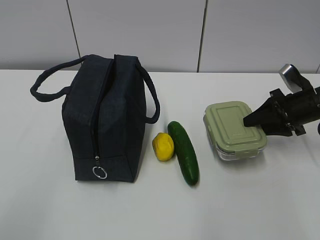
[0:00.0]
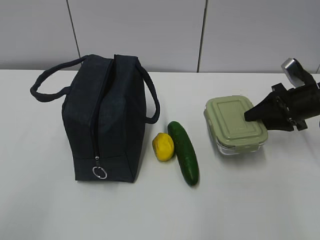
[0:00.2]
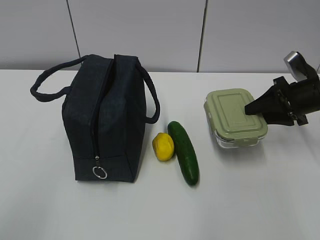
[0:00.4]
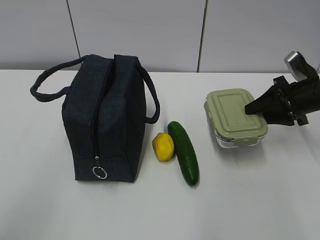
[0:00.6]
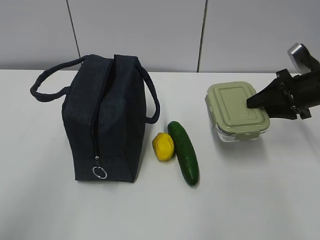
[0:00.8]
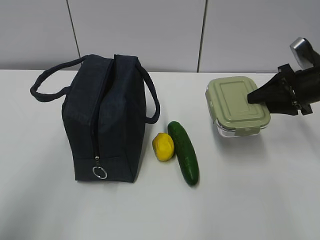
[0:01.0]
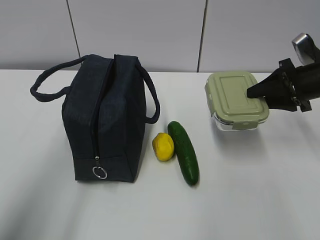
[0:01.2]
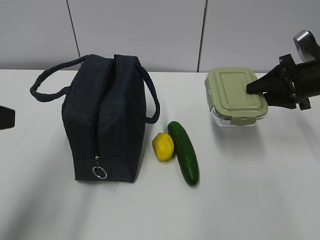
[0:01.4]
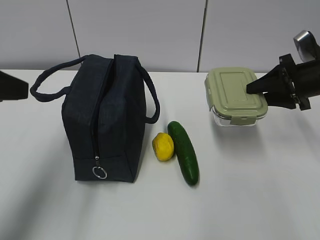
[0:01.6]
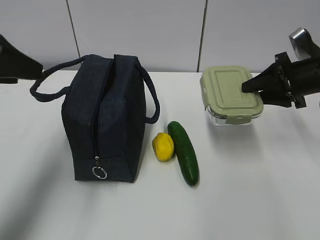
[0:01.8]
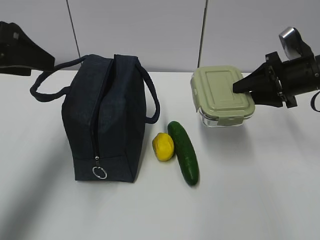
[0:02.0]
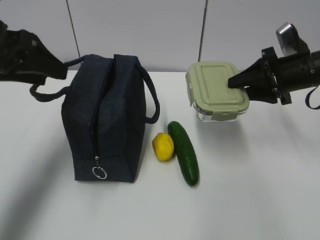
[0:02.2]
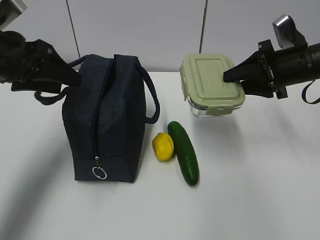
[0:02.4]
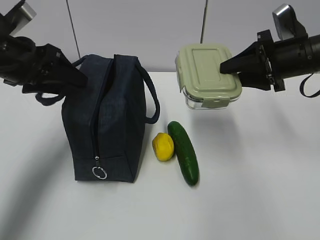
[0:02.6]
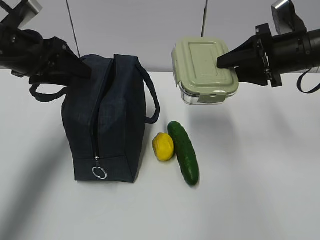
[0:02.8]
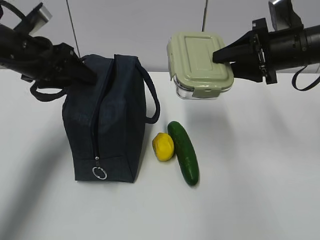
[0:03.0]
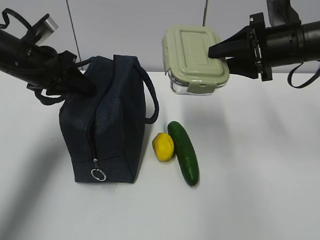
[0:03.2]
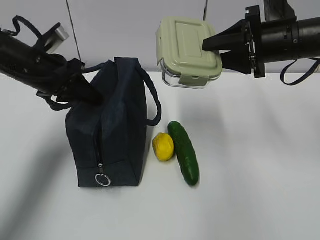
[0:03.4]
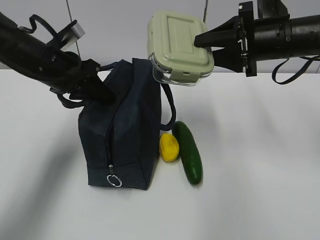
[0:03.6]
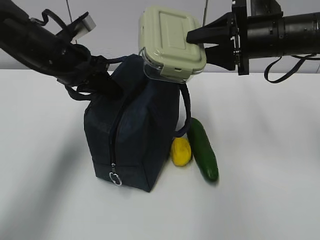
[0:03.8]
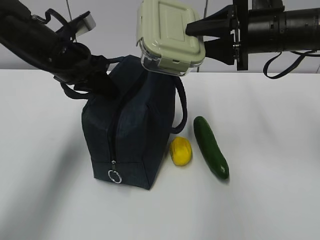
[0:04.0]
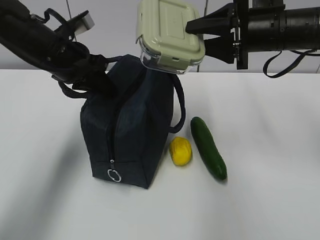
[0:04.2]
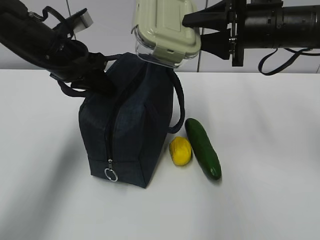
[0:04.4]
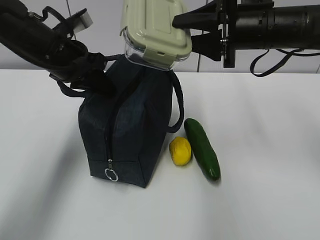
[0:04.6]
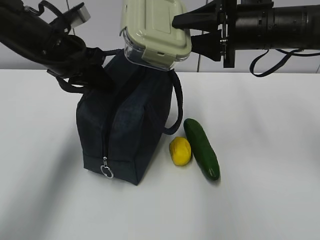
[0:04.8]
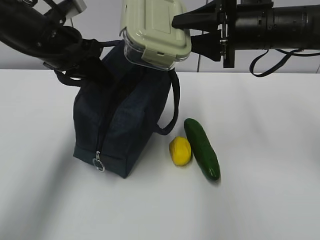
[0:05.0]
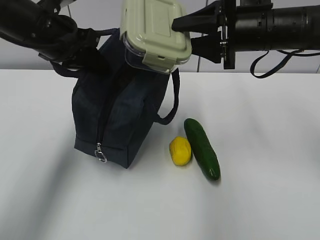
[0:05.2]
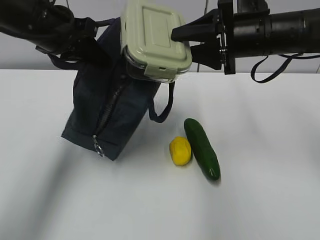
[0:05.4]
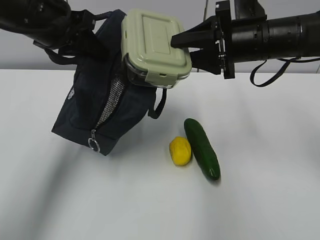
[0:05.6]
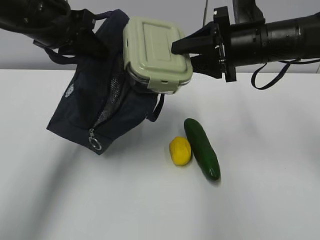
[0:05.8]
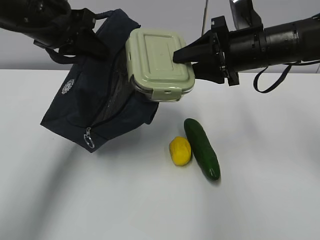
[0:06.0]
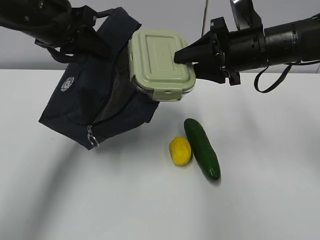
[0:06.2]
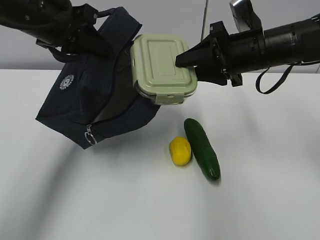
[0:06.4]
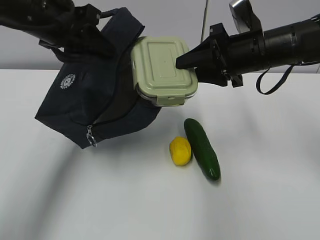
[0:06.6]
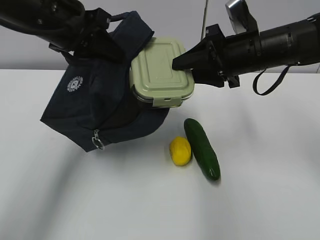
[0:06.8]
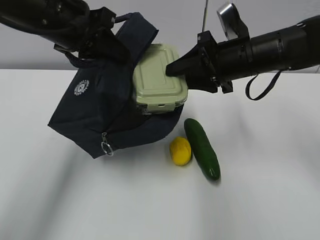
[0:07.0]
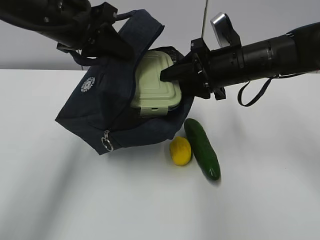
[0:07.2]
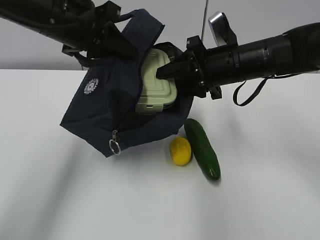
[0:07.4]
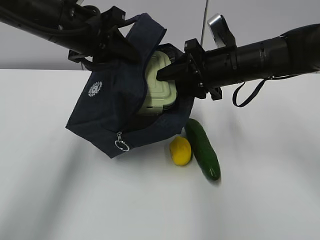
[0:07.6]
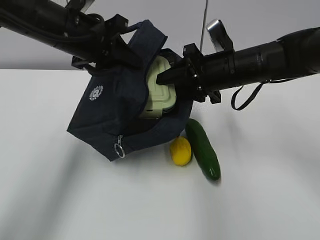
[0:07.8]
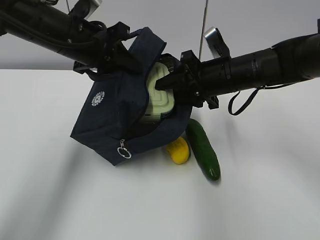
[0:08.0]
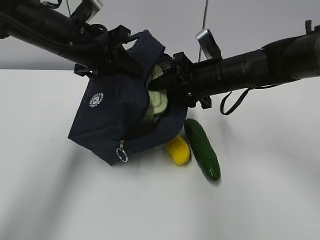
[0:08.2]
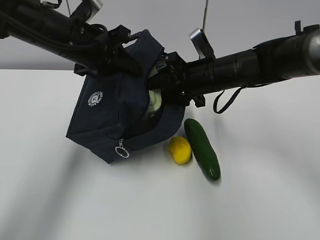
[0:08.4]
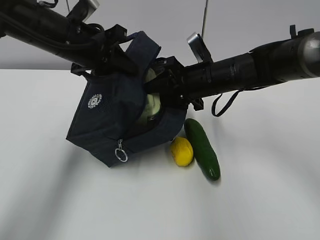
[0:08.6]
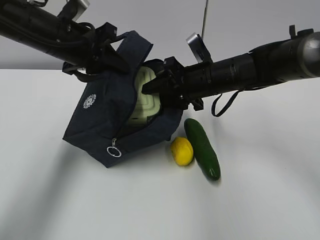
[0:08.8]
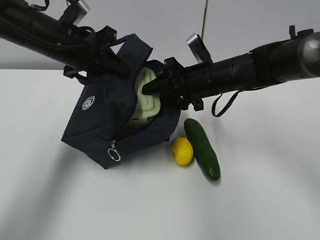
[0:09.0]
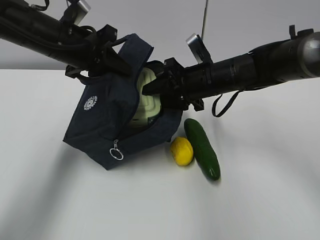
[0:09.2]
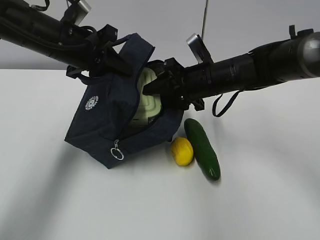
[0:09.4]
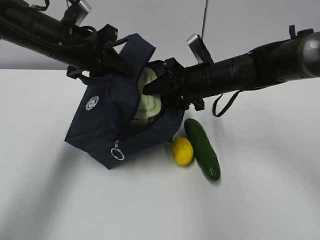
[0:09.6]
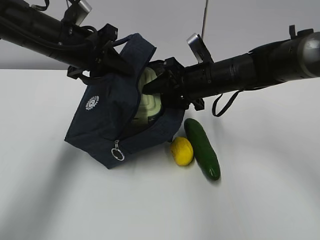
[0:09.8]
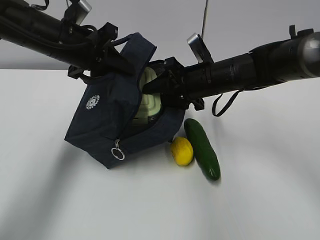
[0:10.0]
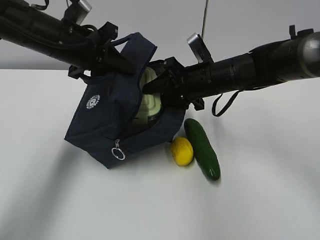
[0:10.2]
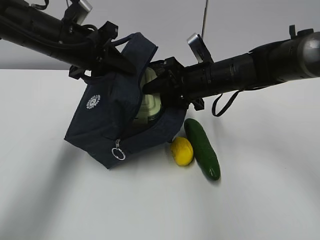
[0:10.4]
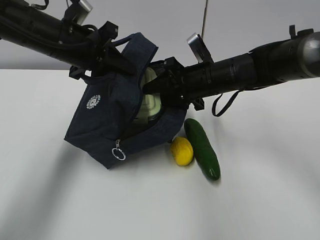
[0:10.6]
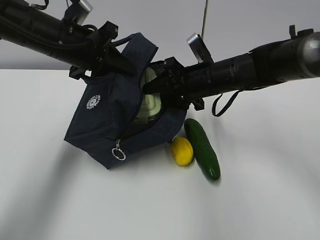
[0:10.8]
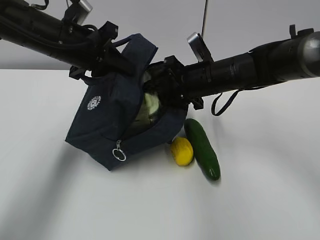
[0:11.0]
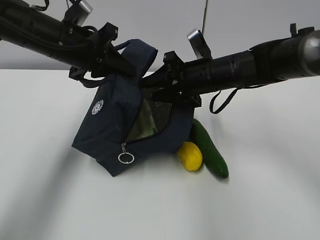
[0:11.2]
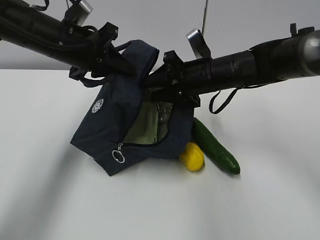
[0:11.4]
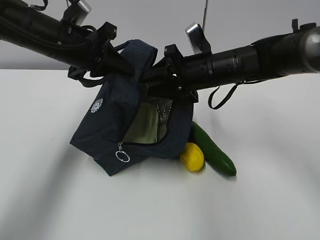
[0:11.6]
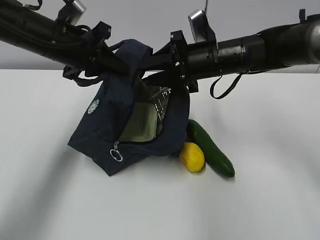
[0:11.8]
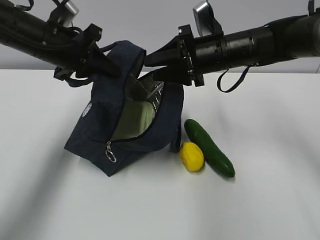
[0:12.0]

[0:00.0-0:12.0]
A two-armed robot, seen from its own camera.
Step, 0:01.4 to 0:06.2: Place it into the bag with your right hand.
Step, 0:06.6 to 0:10.8: Grab the cucumber with your right hand.
0:00.0 to 0:01.6: The left gripper shifts approximately 20 cm forward, and opens up; the right gripper moves upward, approximately 5 cm.
0:01.6 to 0:03.0: The left gripper is displaced forward by some 15 cm; the right gripper moves to the left and upward, approximately 10 cm.
0:03.0 to 0:04.4: The left gripper goes approximately 5 cm to the right, and closes. Meanwhile the right gripper goes roughly 5 cm to the left.
0:04.4 to 0:06.0: The left gripper heads upward, covering approximately 5 cm.
0:07.6 to 0:09.0: The right gripper changes place by about 5 cm.
0:09.0 to 0:10.4: Neither gripper changes place.

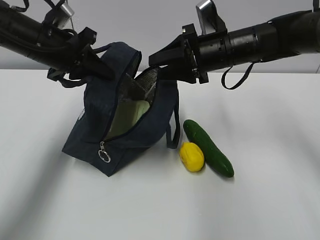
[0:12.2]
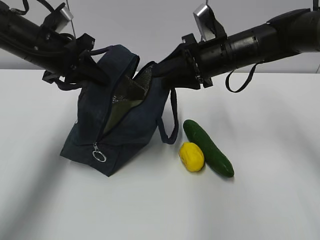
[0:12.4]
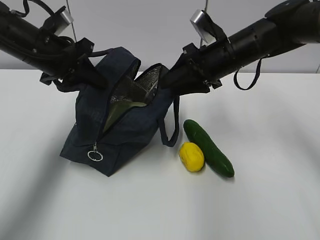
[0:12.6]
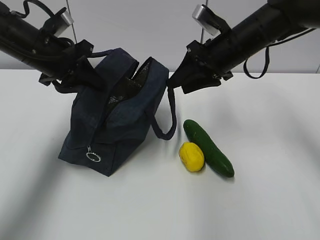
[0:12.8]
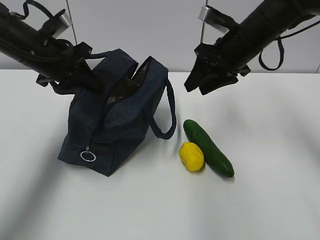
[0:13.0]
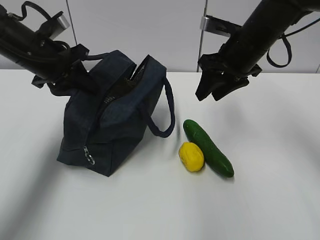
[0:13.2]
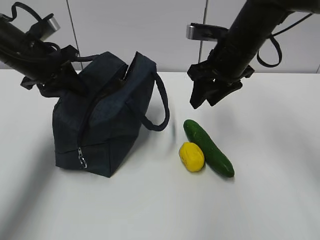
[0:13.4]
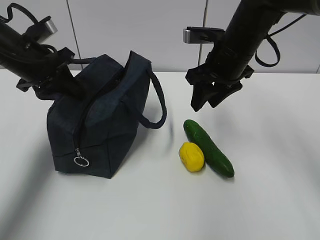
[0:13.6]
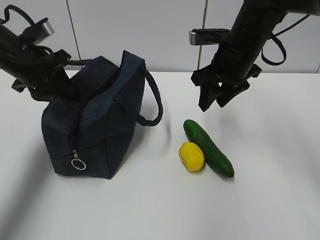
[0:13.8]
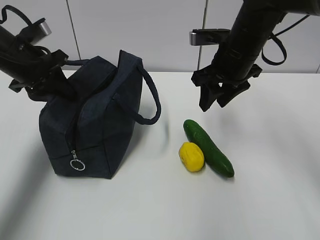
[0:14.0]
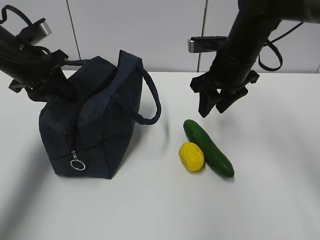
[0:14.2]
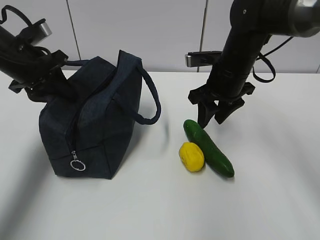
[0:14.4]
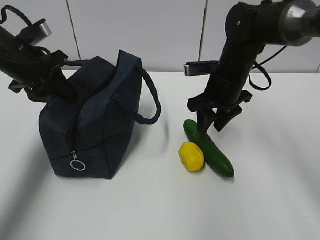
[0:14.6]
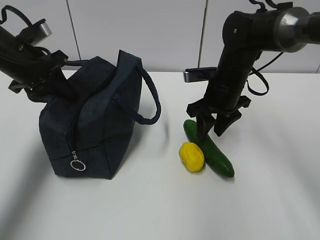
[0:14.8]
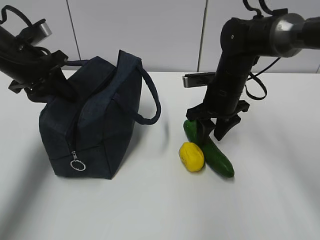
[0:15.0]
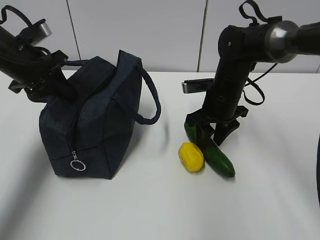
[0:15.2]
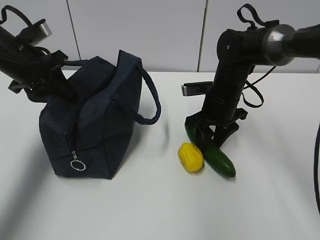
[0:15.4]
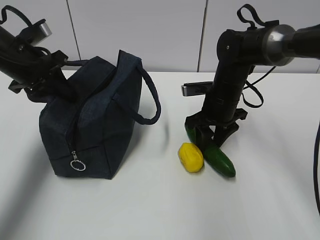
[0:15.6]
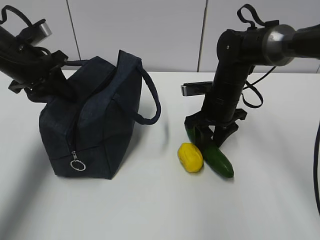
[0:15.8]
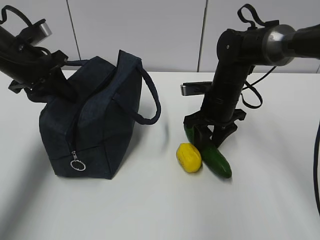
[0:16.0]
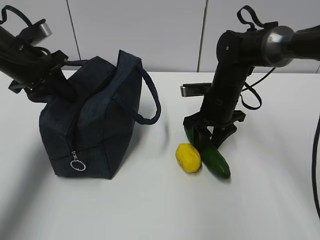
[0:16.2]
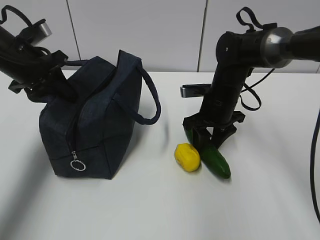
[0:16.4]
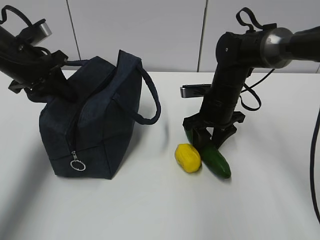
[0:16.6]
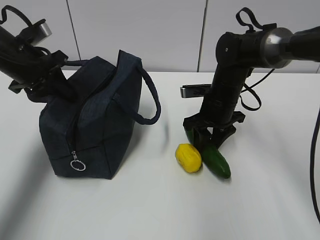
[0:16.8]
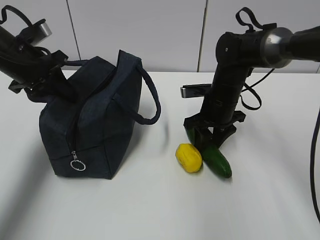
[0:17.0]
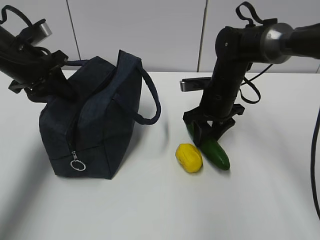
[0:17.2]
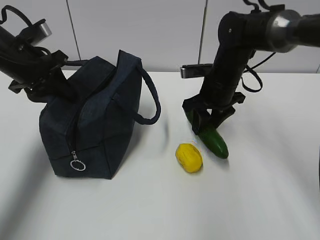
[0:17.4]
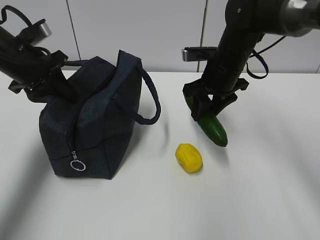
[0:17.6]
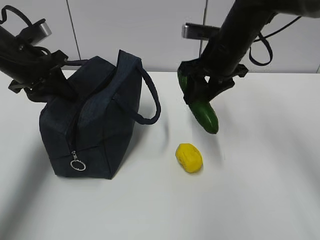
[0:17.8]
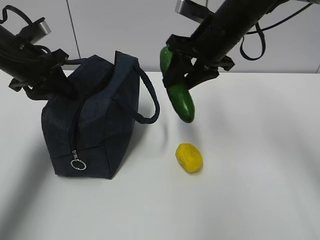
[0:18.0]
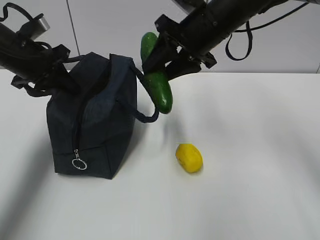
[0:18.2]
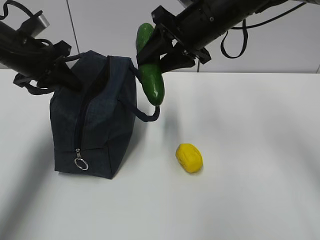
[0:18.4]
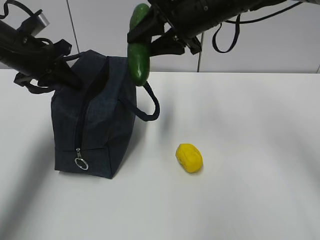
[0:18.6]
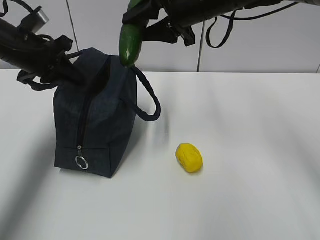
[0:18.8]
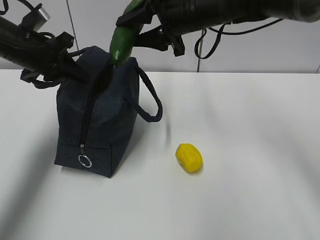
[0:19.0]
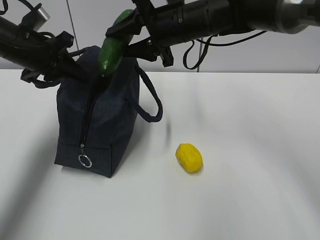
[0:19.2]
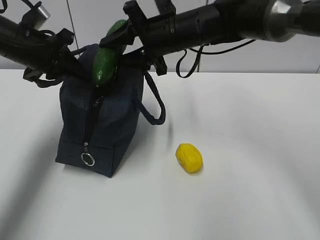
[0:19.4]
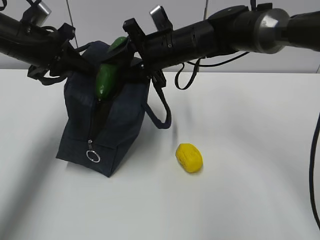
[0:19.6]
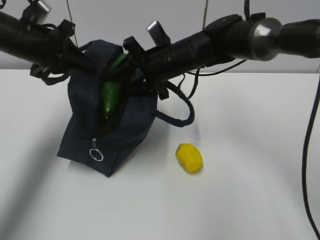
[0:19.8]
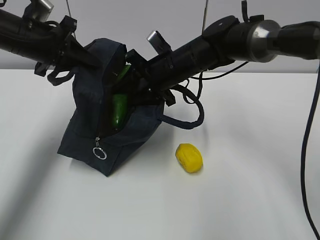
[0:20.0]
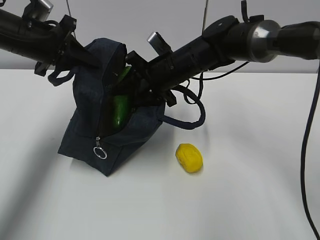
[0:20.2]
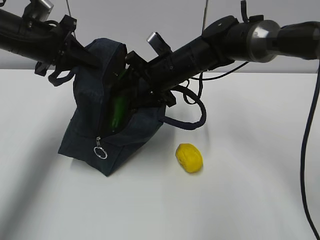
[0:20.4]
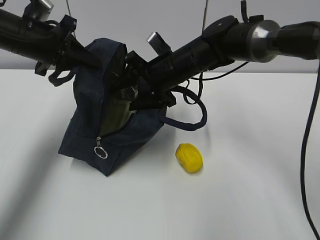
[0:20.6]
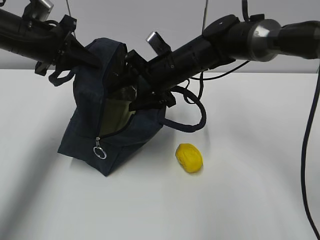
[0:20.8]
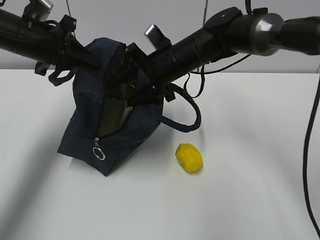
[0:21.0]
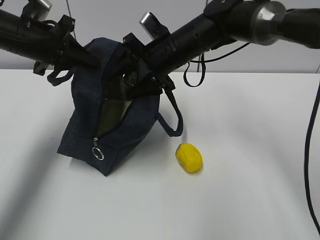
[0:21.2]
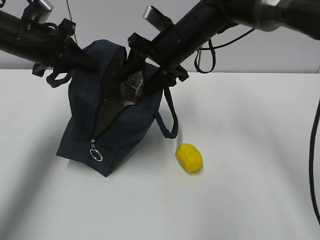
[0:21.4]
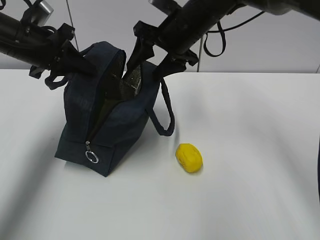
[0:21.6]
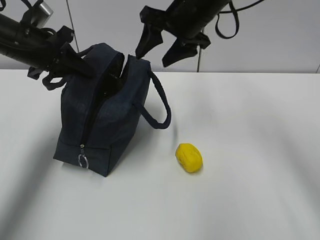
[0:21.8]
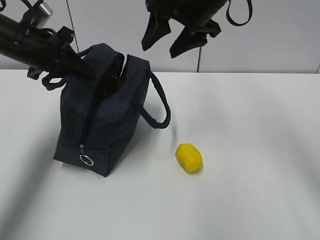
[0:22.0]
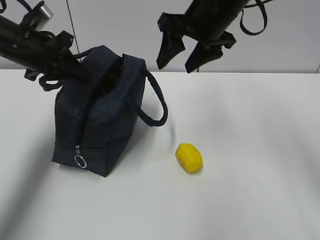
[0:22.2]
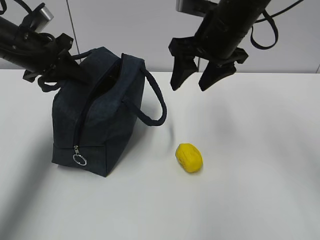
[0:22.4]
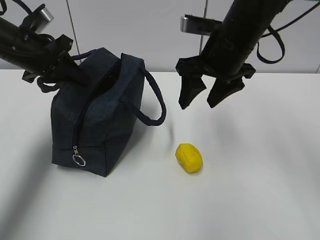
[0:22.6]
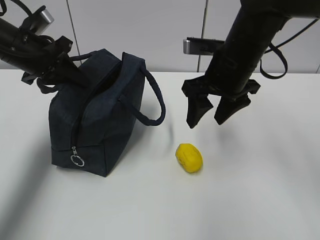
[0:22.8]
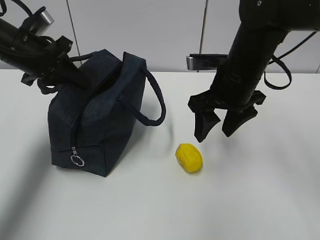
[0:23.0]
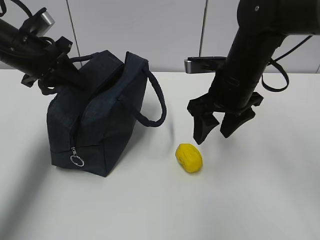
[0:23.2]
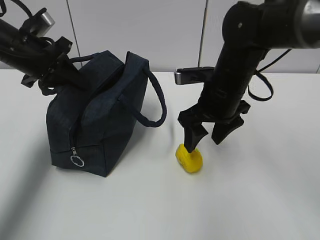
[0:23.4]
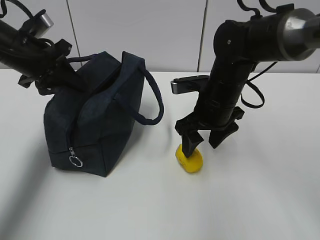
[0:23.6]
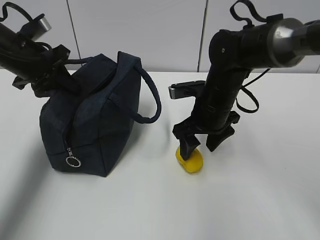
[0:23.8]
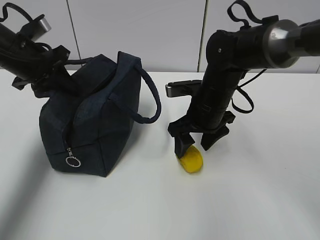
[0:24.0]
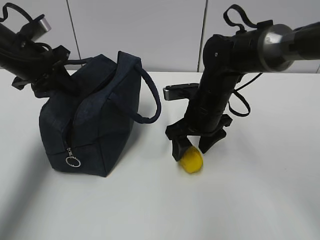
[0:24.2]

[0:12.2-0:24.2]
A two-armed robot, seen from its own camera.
Step, 0:12.2 to 0:14.0: Place it into the bag with your right hand.
Step, 0:14.2 to 0:17.8: Grab the lemon with your right hand.
Step, 0:20.8 to 0:23.0: Grab the lunch bag with your right hand.
0:12.2 to 0:13.8: The left gripper shifts by roughly 5 cm.
0:13.8 to 0:15.2: The right gripper shifts approximately 10 cm downward.
0:15.2 to 0:16.6: Both grippers stay about where they are.
0:16.6 to 0:18.2: The right gripper heads upward, covering some 15 cm.
0:18.2 to 0:19.8: The right gripper heads downward and to the left, covering roughly 10 cm.
0:19.8 to 0:21.2: The grippers move only a little.
0:21.2 to 0:22.6: The right gripper travels to the right and backward by some 10 cm.
0:22.6 to 0:24.2: The right gripper shifts some 10 cm downward.
